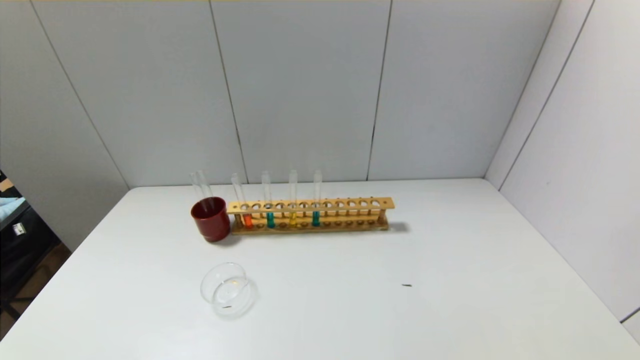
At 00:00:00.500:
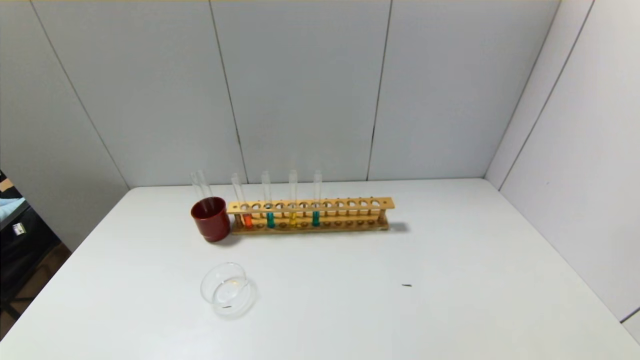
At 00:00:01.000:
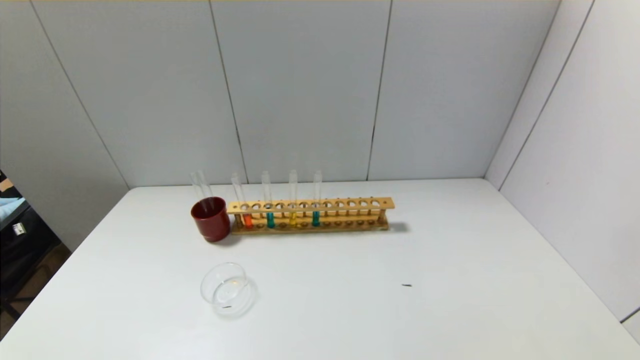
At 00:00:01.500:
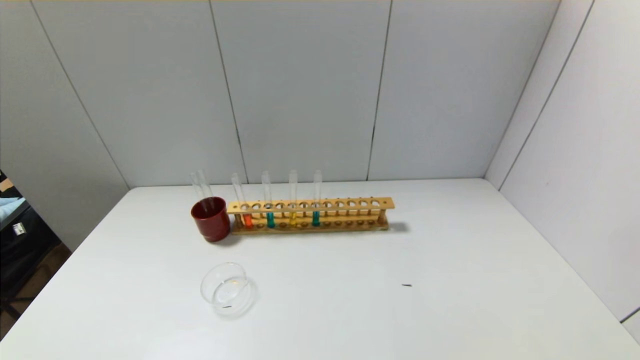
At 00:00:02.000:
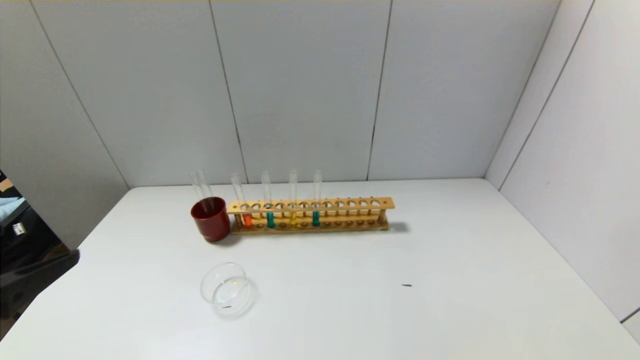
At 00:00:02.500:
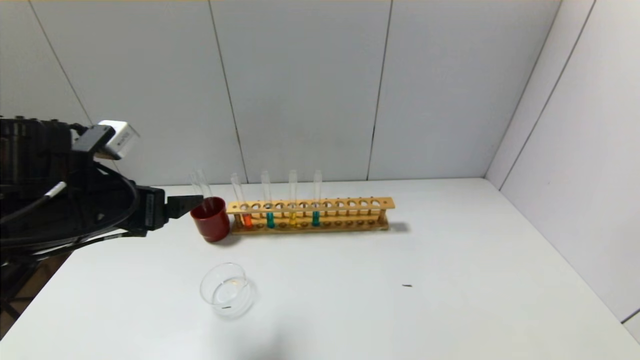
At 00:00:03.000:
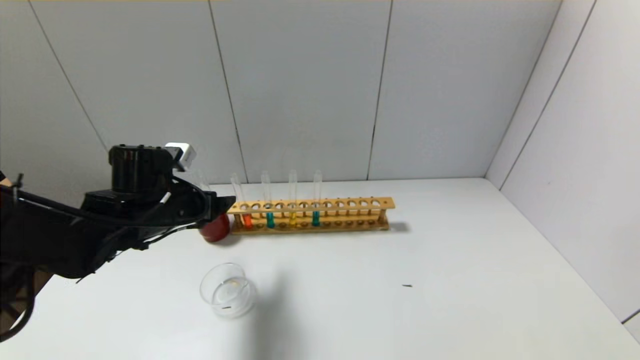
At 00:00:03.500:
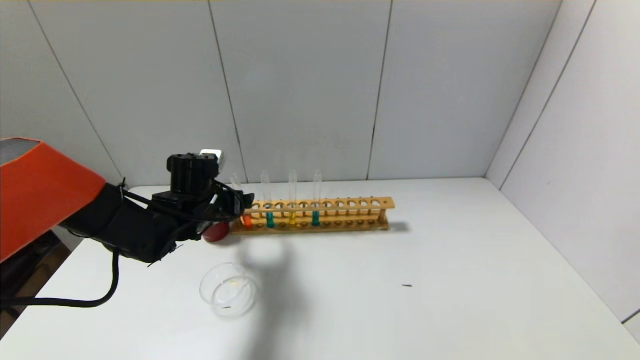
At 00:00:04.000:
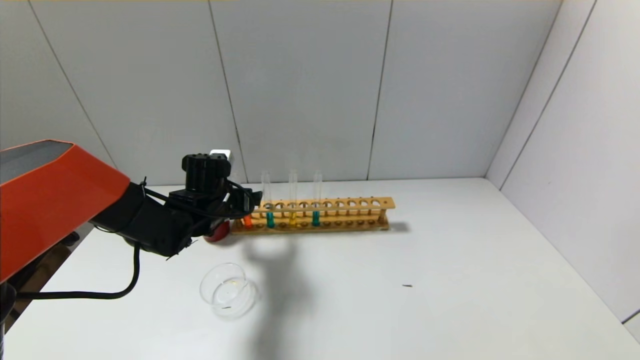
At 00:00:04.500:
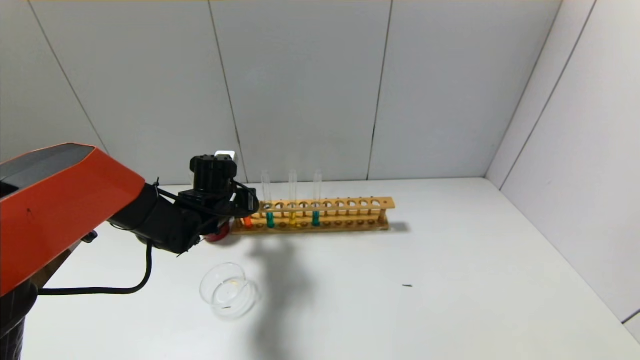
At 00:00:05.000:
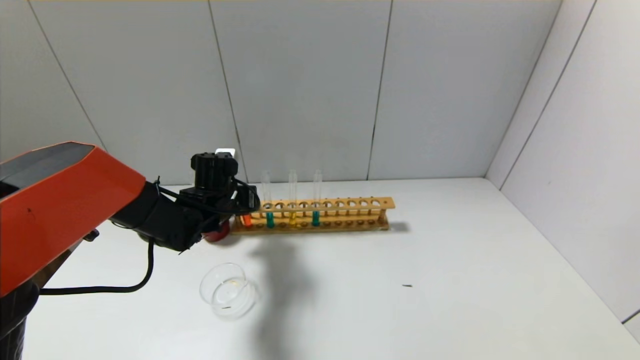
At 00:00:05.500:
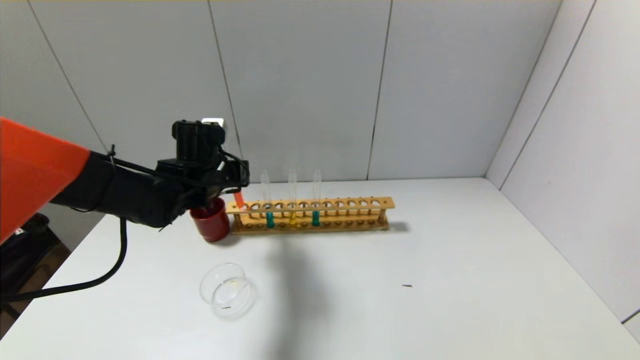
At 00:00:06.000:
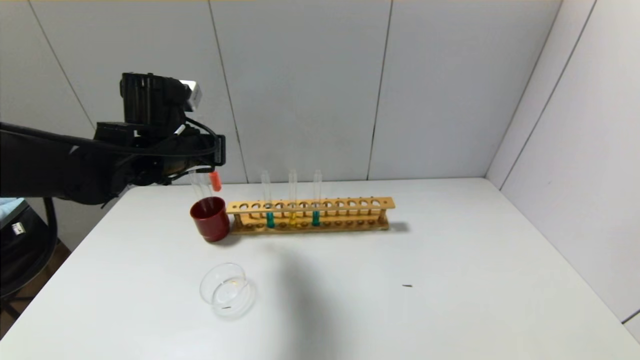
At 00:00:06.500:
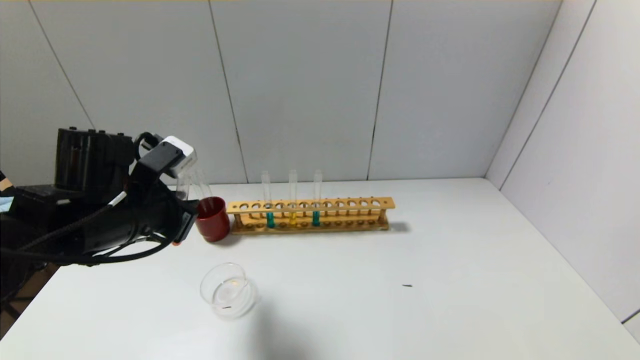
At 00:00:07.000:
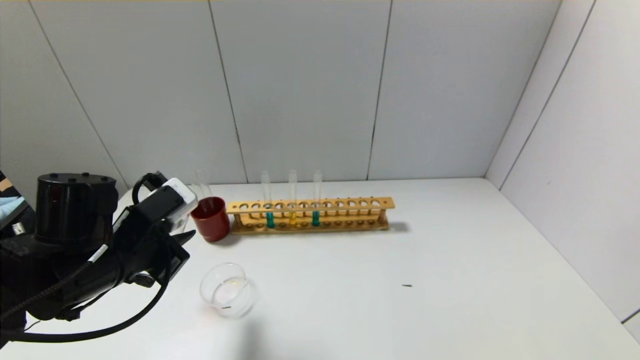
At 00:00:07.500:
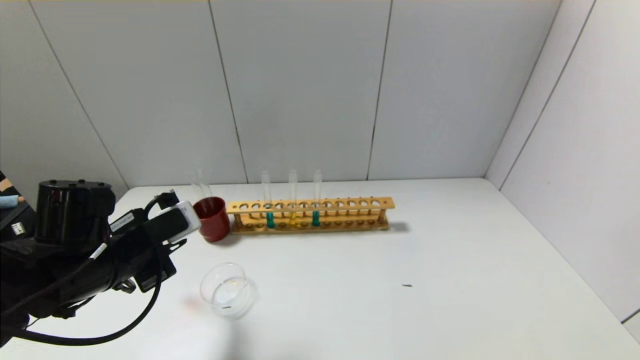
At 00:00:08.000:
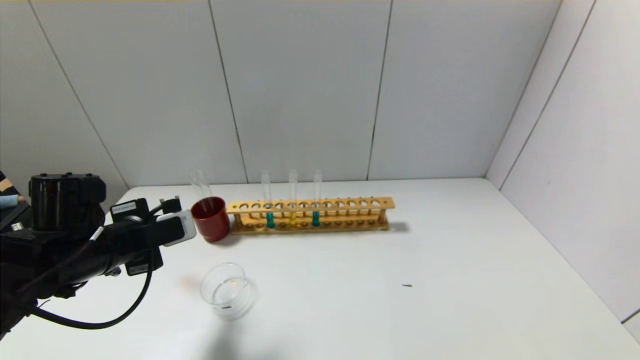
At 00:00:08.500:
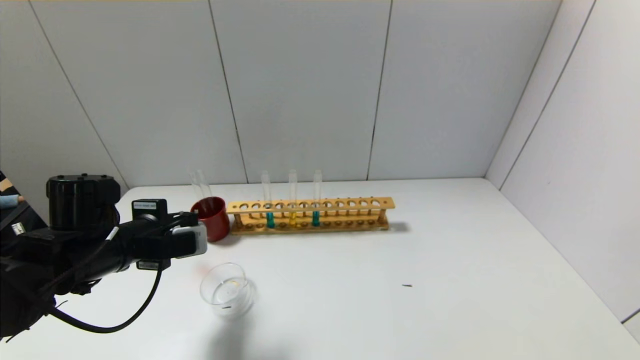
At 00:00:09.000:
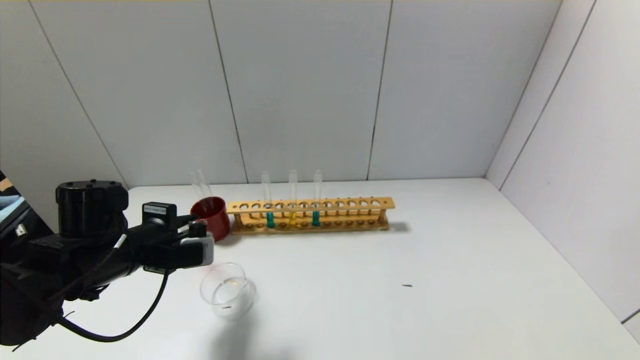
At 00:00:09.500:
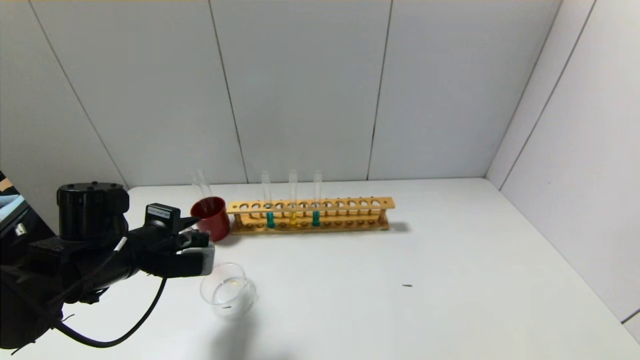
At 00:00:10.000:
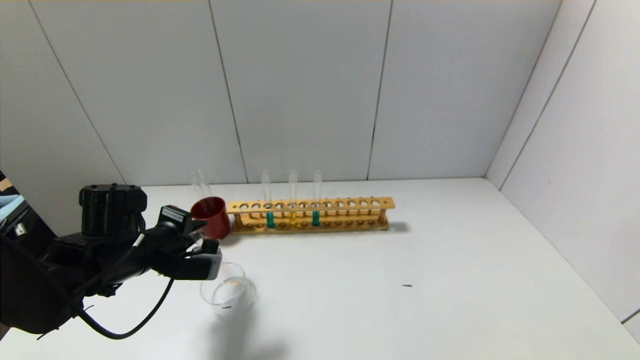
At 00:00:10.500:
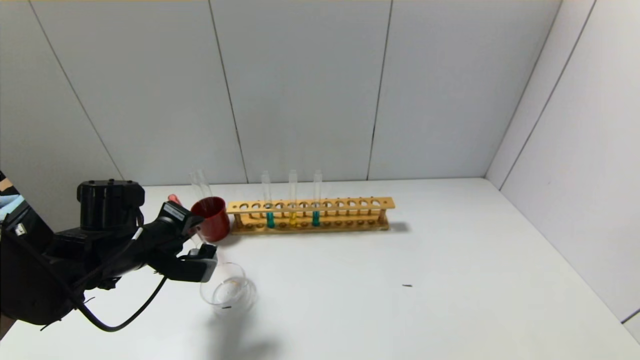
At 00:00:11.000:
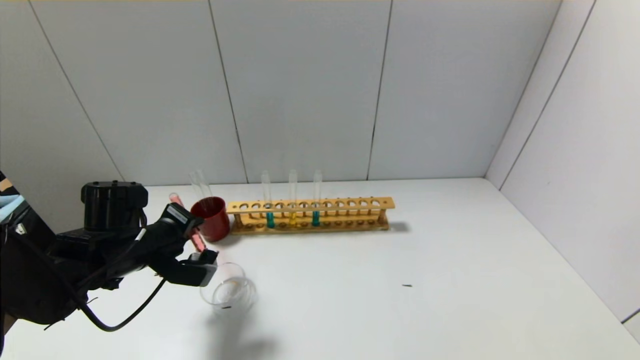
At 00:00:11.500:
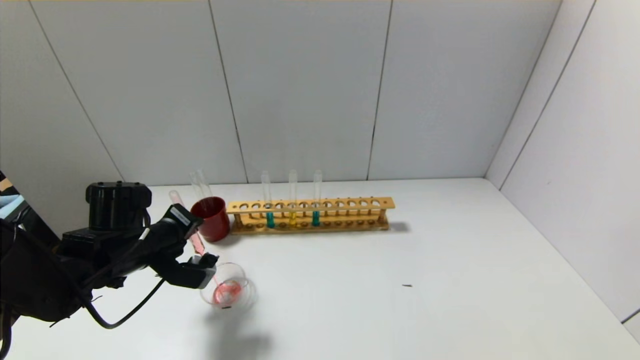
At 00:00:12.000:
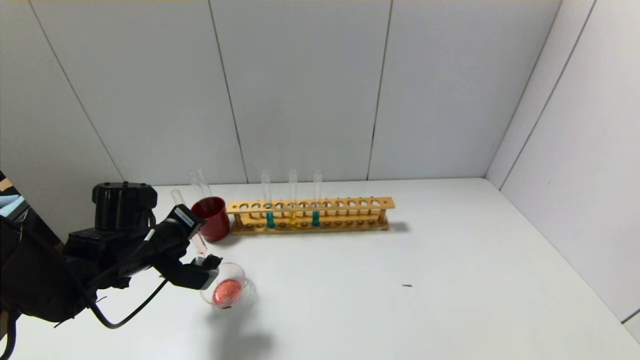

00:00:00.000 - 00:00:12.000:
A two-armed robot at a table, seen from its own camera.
Step, 00:00:00.000 - 00:00:04.500: Grasp the red reagent with the left gripper.
00:00:02.000 - 00:00:04.000: The left gripper heads forward and downward, covering some 35 cm.
00:00:04.000 - 00:00:06.000: The left gripper heads upward, covering approximately 15 cm, and closes.
00:00:06.000 - 00:00:08.000: The left gripper moves downward, backward and to the left, about 15 cm.

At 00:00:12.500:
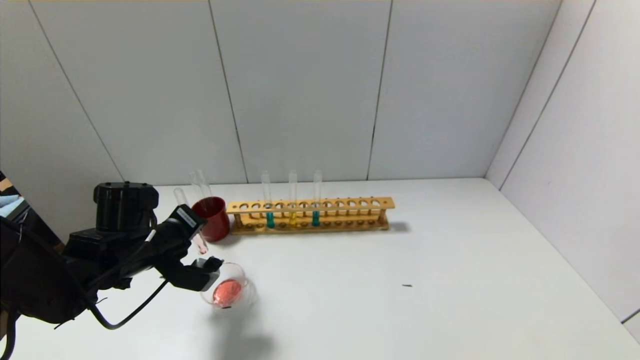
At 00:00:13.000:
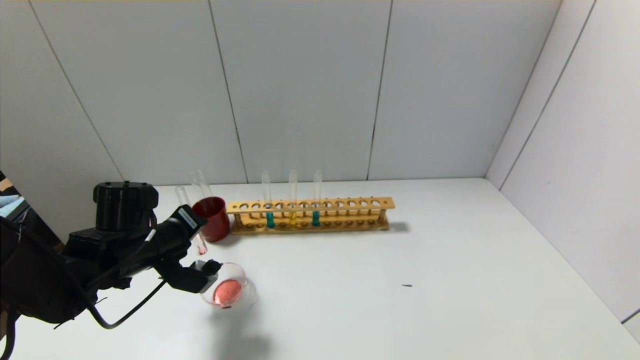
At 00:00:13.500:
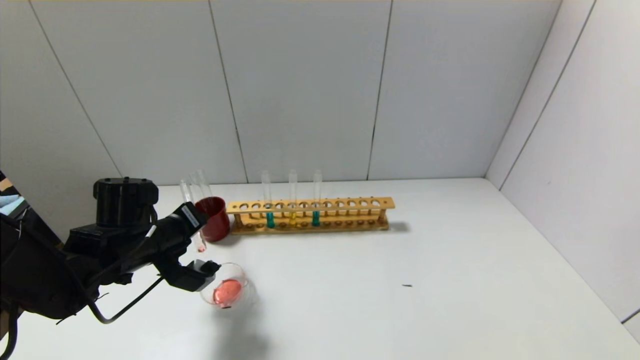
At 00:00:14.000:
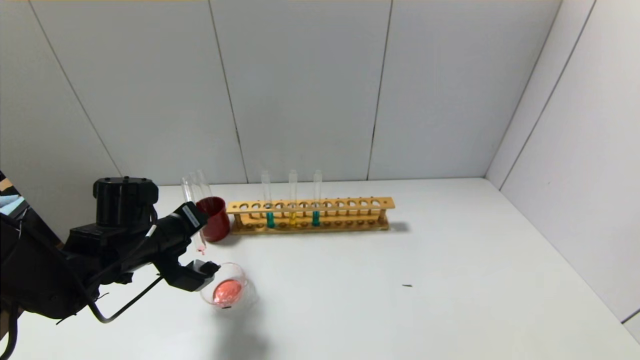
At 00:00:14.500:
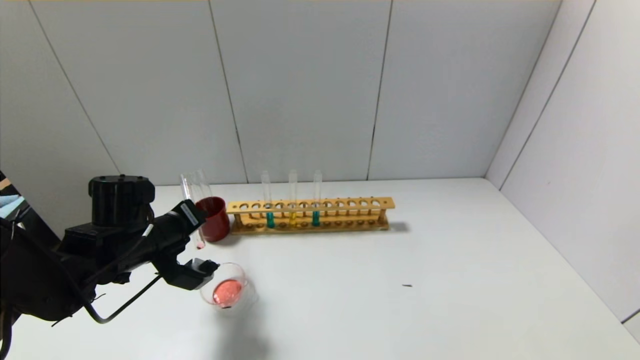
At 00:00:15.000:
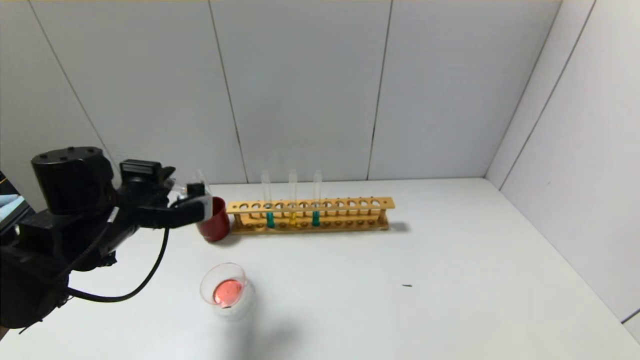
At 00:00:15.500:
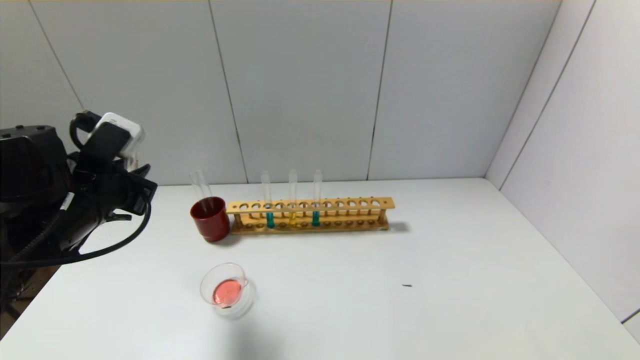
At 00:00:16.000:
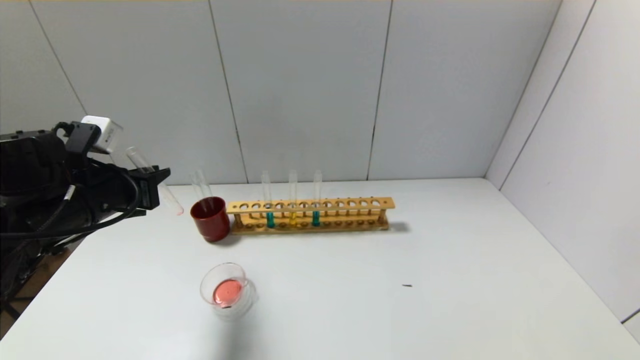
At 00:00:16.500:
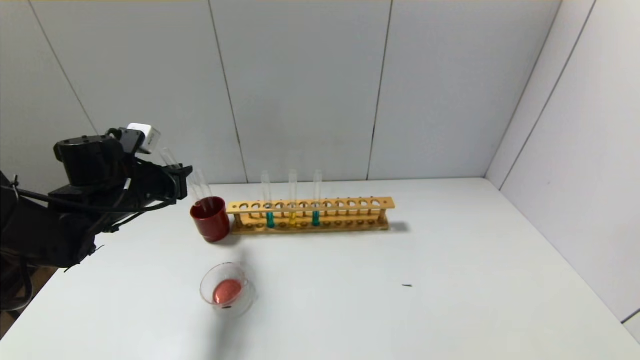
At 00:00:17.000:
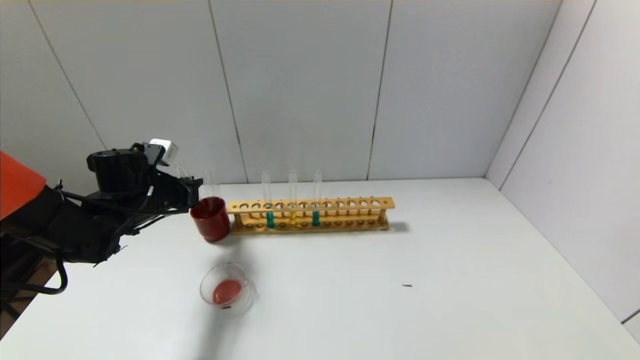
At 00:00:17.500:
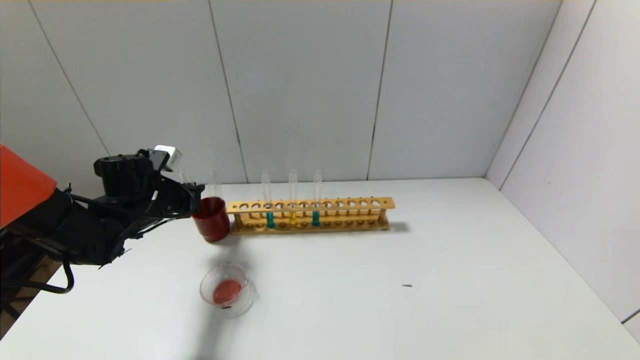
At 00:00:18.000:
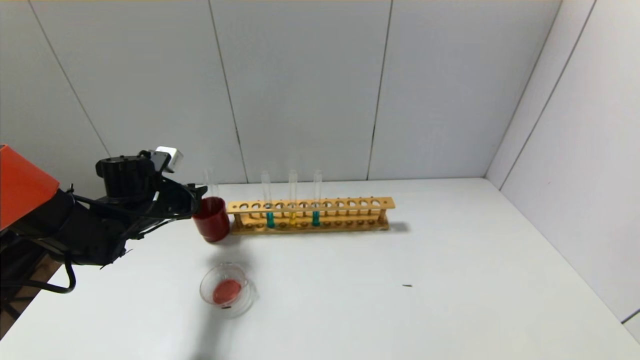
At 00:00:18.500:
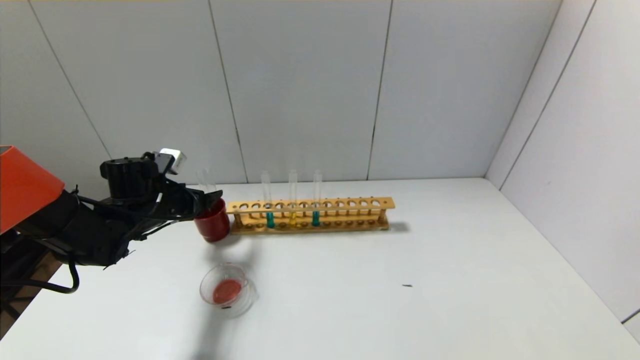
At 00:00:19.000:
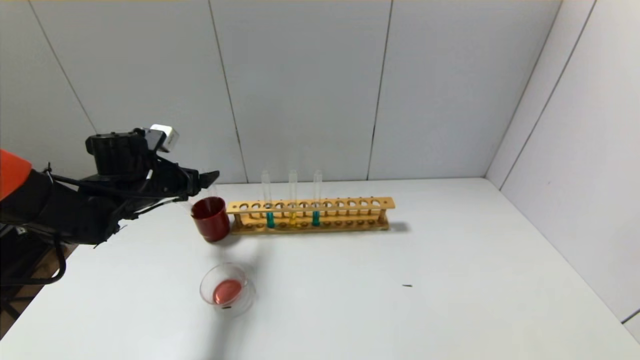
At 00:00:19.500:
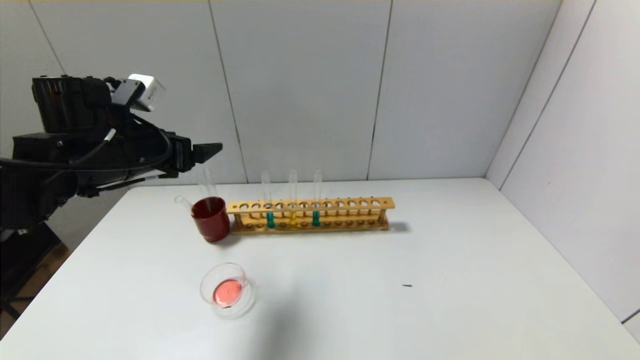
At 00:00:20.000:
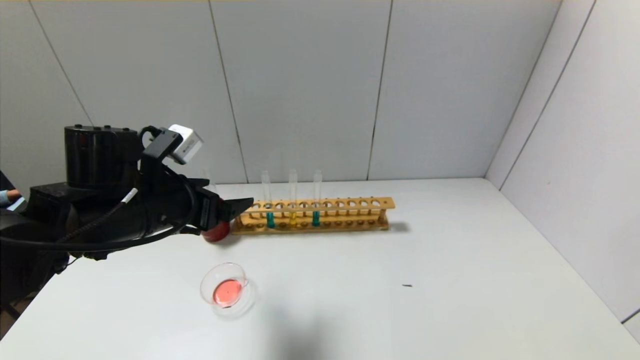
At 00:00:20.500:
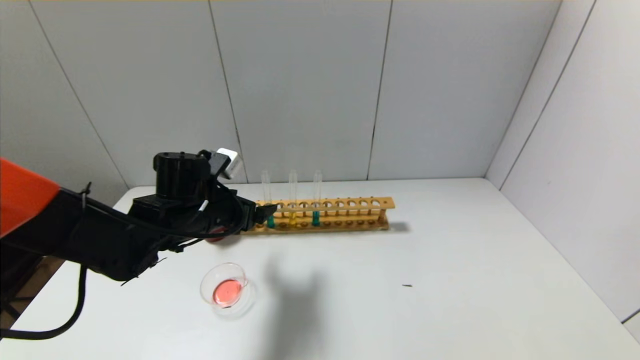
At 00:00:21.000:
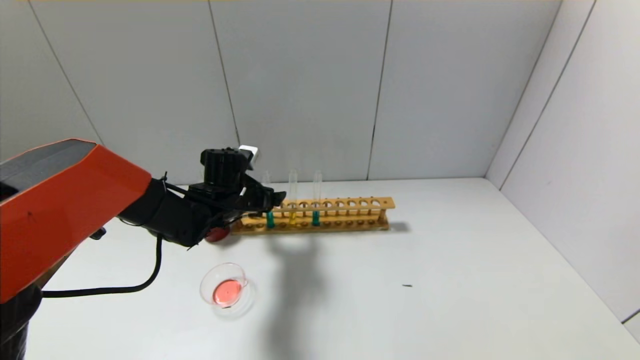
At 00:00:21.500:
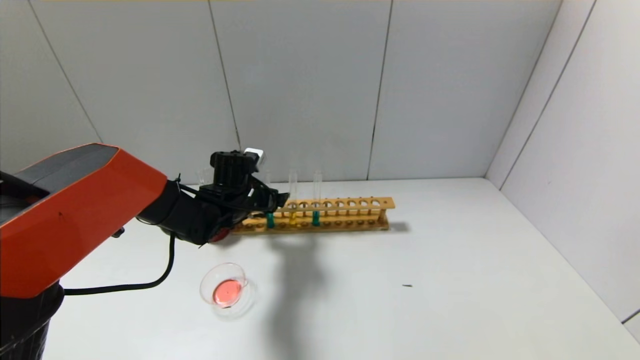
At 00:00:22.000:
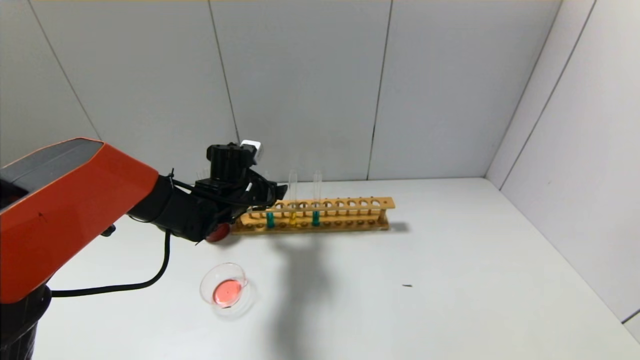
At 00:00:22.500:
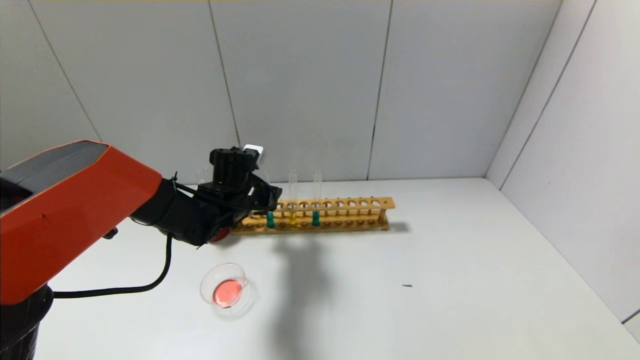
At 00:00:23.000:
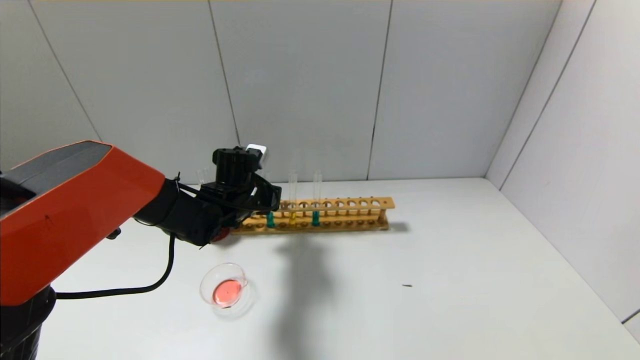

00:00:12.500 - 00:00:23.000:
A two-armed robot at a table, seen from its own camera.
Step, 00:00:12.500 - 00:00:14.500: Pour the red reagent into the graduated cylinder with the left gripper.
Step, 00:00:15.000 - 00:00:18.000: Place the test tube into the brown cup with the left gripper.
Step, 00:00:18.500 - 00:00:22.500: Grasp the blue reagent with the left gripper.
00:00:12.500 - 00:00:14.500: The grippers make only small movements.
00:00:14.500 - 00:00:16.500: The left gripper travels forward by approximately 5 cm.
00:00:16.500 - 00:00:19.000: The left gripper opens up.
00:00:19.000 - 00:00:21.000: The left gripper heads to the right, covering roughly 15 cm, and goes backward and returns, roughly 10 cm each way.
00:00:21.000 - 00:00:23.000: The left gripper closes up.
